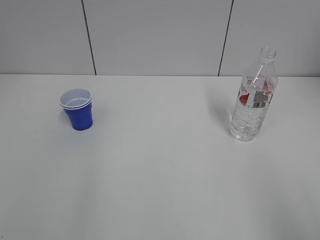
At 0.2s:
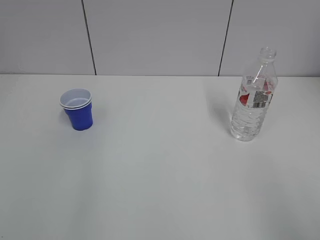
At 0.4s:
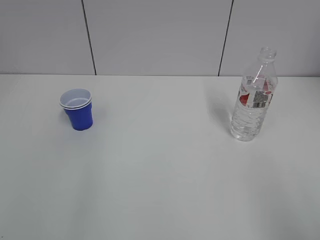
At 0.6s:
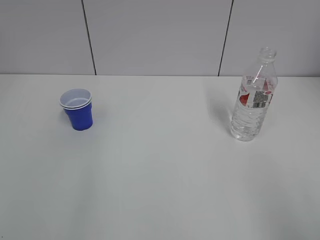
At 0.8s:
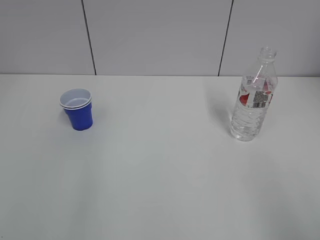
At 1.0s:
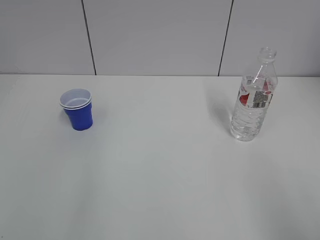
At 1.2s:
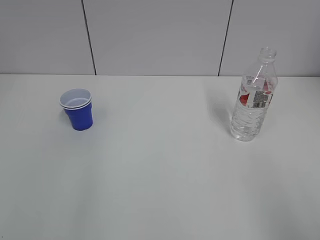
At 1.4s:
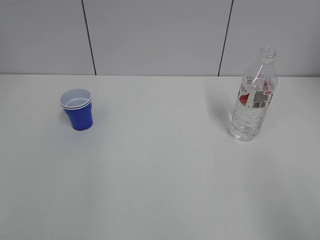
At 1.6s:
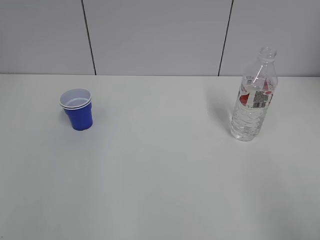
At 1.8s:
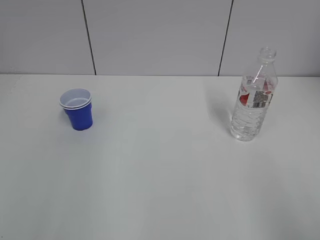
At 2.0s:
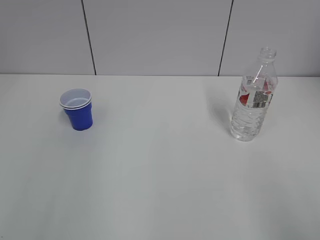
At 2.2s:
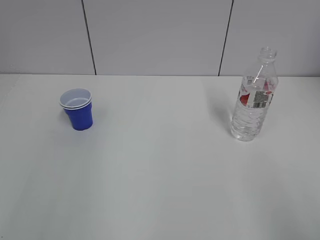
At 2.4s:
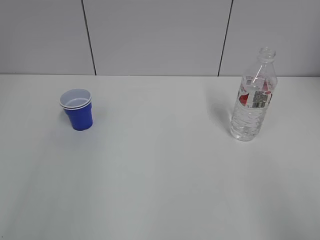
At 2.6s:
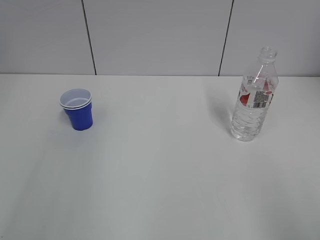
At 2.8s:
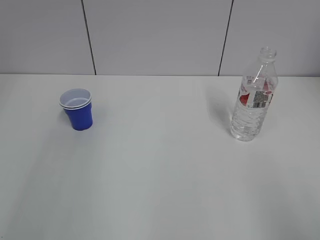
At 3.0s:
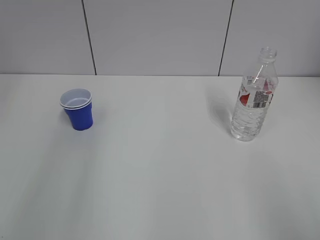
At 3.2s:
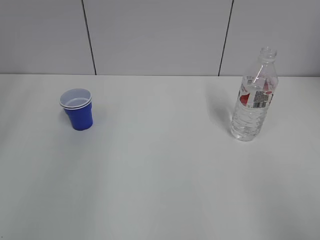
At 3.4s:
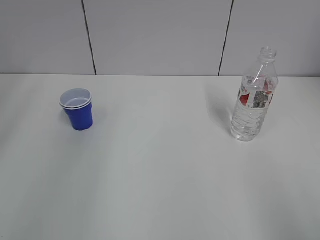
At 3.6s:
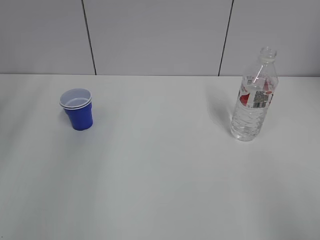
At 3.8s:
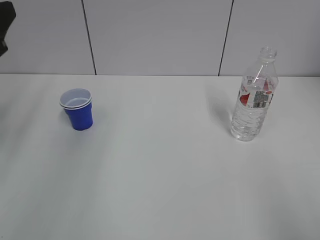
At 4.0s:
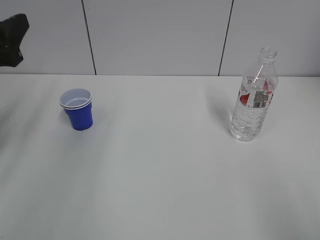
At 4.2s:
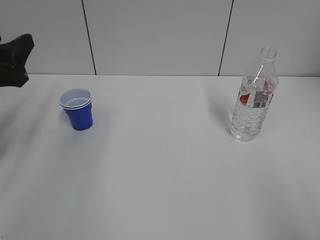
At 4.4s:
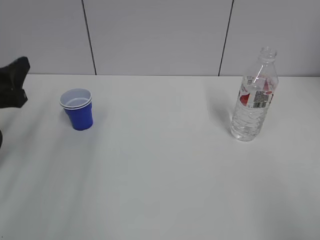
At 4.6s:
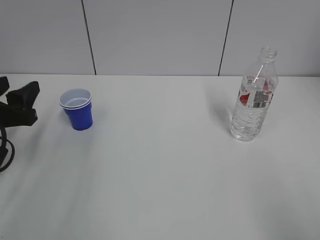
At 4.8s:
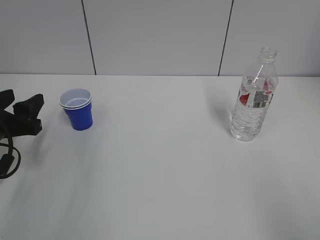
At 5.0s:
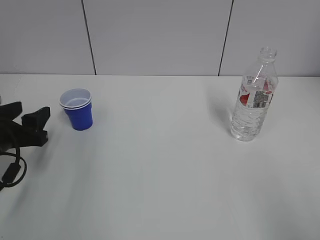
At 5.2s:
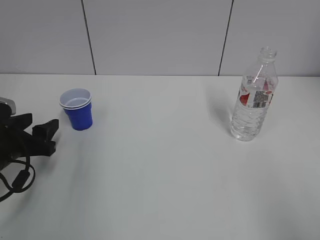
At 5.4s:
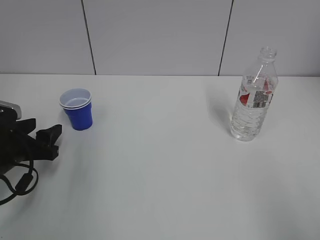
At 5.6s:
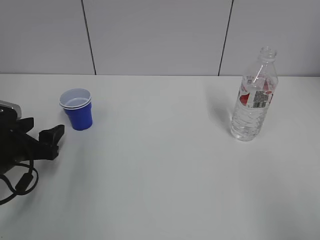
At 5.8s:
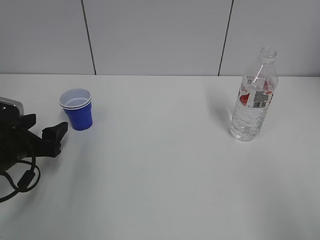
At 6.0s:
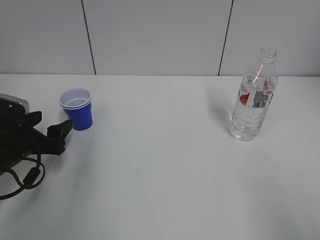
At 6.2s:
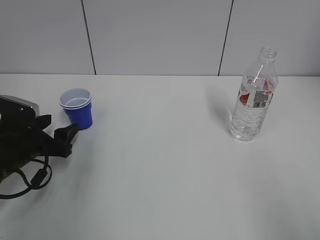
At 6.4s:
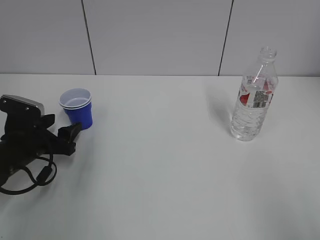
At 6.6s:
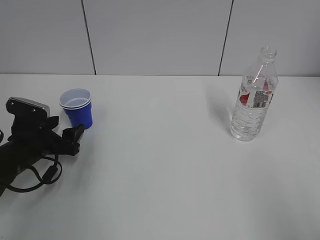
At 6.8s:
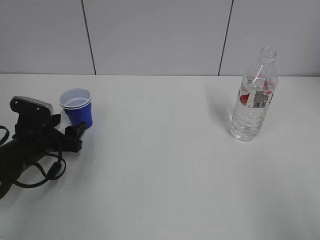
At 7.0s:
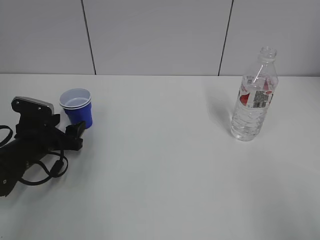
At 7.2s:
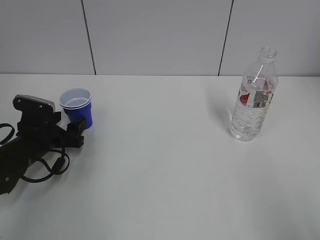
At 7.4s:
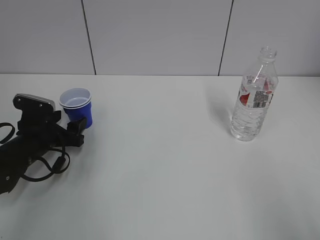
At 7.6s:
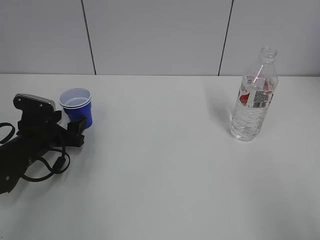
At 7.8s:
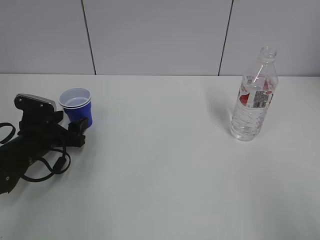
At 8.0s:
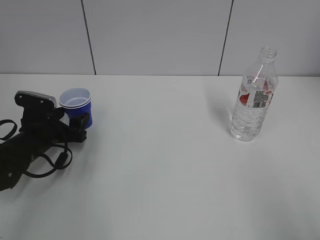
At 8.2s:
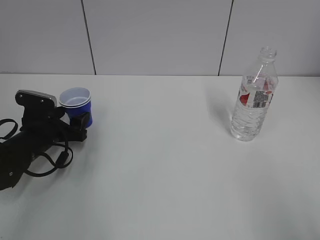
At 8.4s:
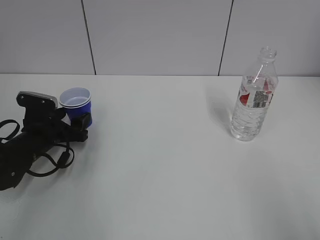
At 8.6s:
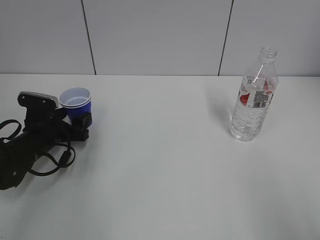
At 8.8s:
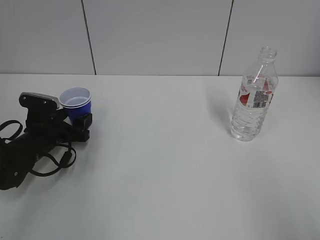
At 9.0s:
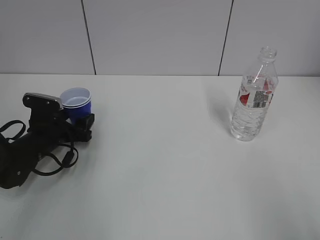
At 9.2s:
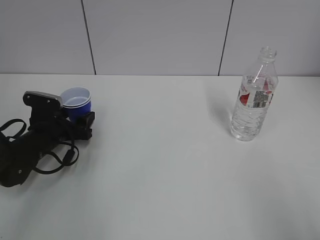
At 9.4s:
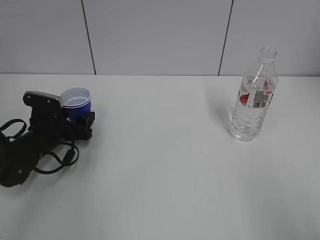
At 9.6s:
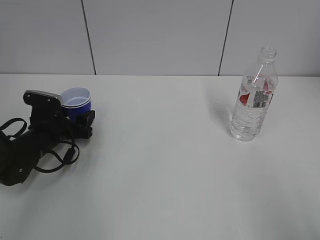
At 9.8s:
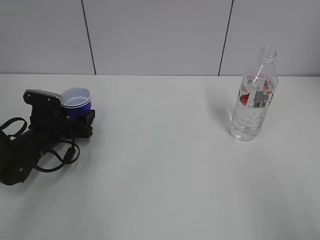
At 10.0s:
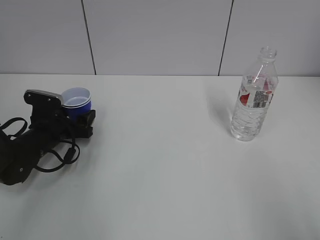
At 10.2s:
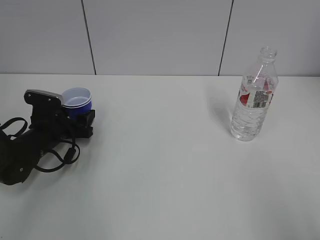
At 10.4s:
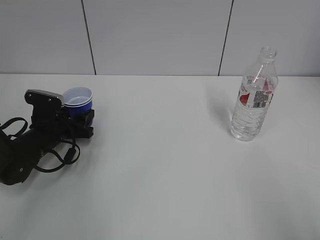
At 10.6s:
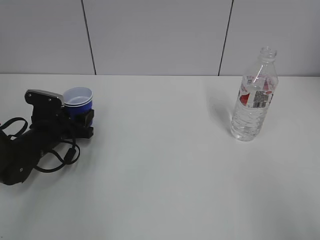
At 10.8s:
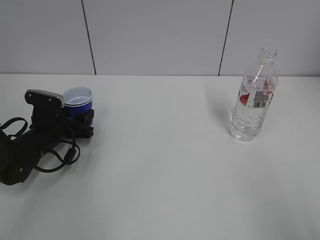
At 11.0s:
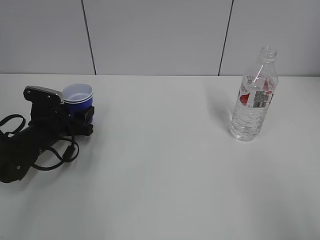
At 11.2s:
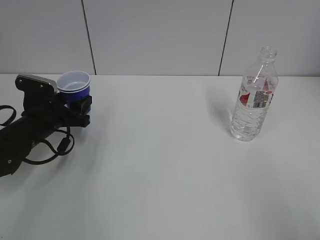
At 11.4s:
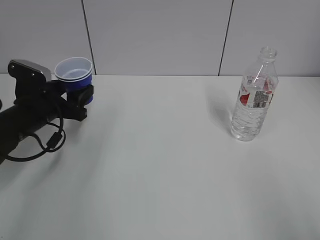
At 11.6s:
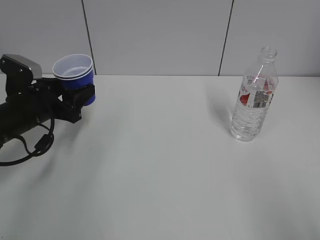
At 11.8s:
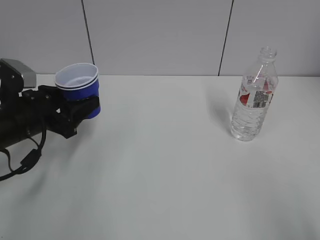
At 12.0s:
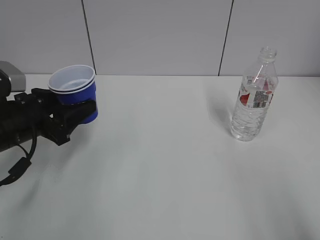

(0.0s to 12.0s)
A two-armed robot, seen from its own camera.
Step, 0.0s - 10.4s: Grab the paper cup with the left hand.
3.0s - 4.4s: The left gripper shifts roughly 20 cm downward and forward.
4.4s - 6.0s: The left gripper heads downward, covering approximately 10 cm, and opens.
6.0s - 7.6s: The left gripper is displaced forward by about 5 cm.
7.6s - 9.0s: The grippers move only a little.
9.0s - 10.4s: The left gripper closes.
10.4s - 12.0s: The left gripper moves upward and backward, some 15 cm.

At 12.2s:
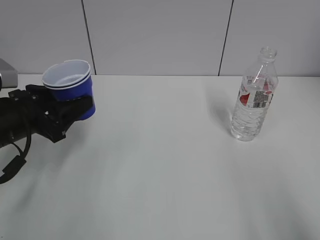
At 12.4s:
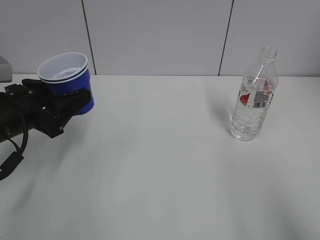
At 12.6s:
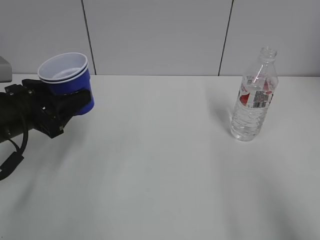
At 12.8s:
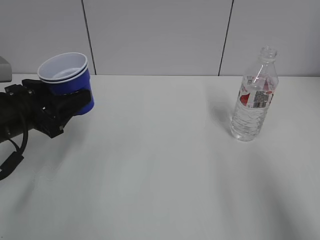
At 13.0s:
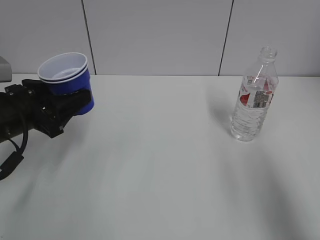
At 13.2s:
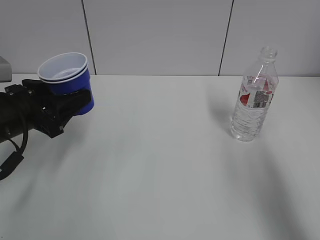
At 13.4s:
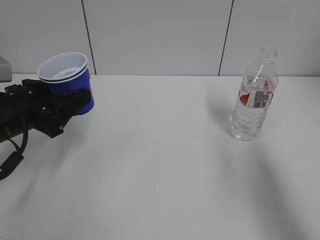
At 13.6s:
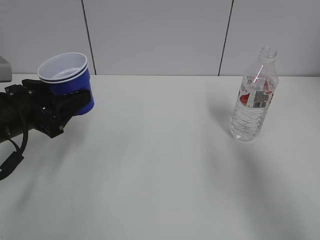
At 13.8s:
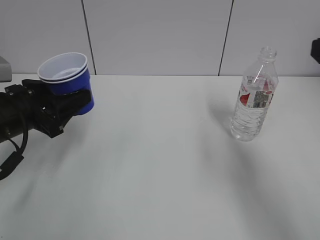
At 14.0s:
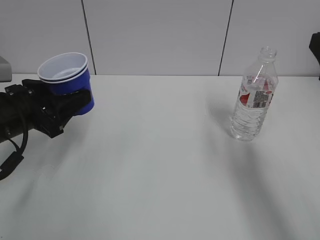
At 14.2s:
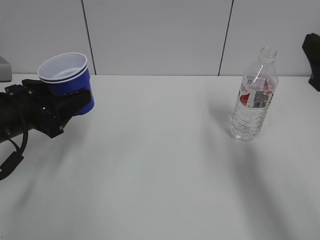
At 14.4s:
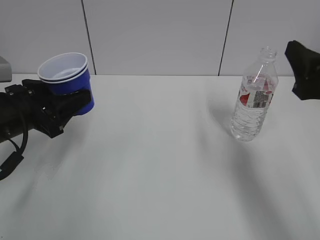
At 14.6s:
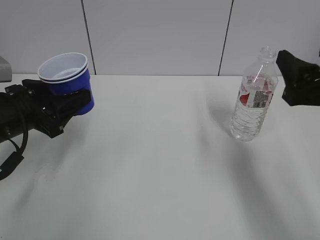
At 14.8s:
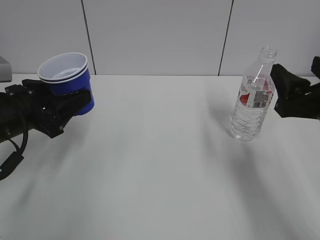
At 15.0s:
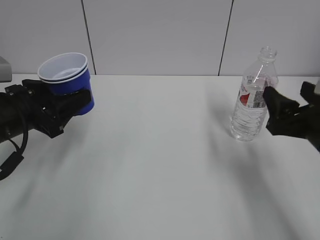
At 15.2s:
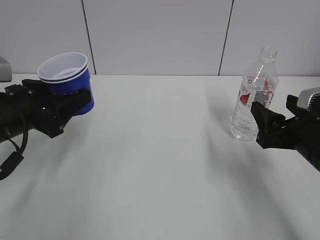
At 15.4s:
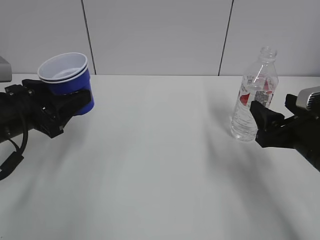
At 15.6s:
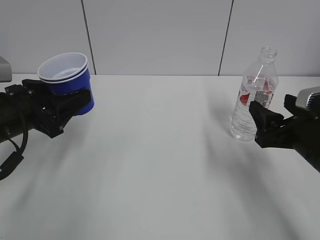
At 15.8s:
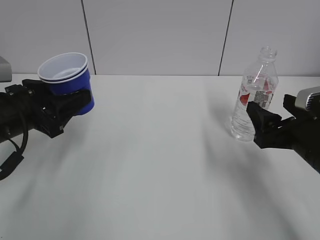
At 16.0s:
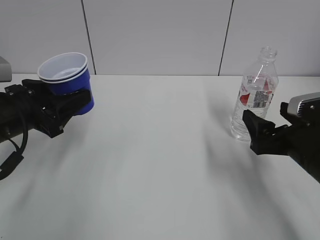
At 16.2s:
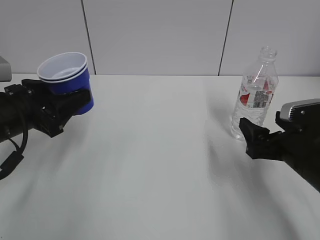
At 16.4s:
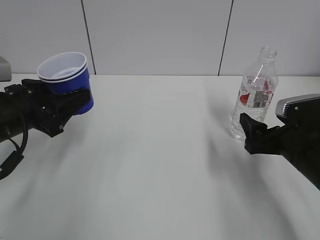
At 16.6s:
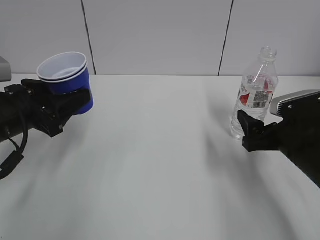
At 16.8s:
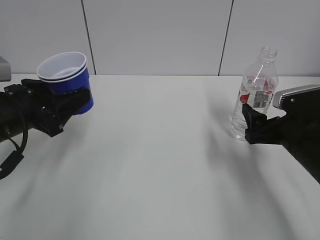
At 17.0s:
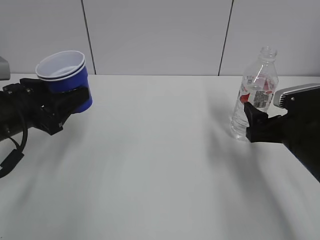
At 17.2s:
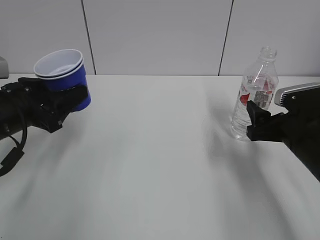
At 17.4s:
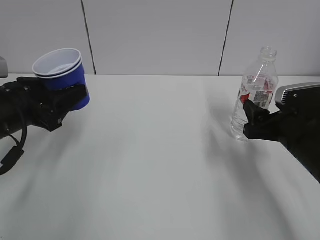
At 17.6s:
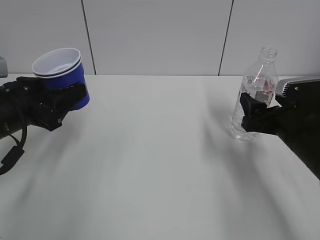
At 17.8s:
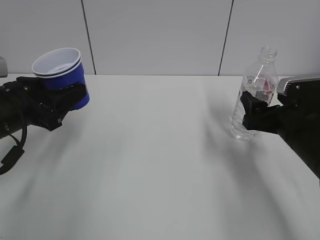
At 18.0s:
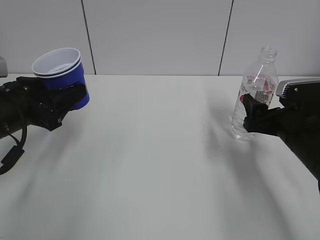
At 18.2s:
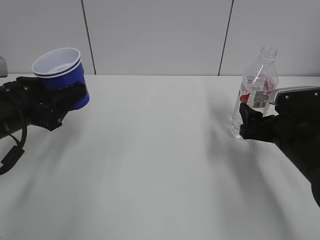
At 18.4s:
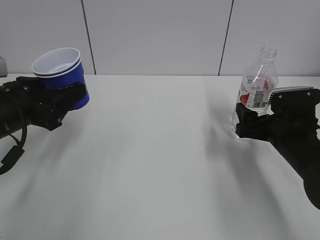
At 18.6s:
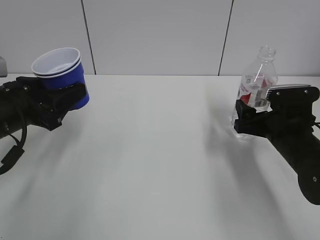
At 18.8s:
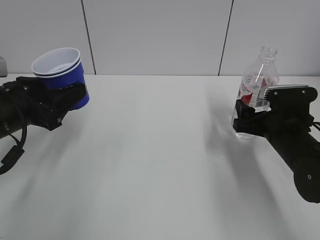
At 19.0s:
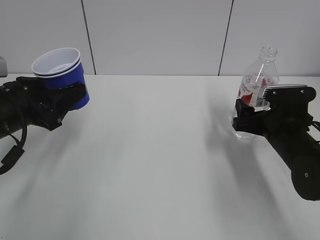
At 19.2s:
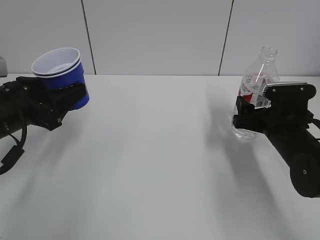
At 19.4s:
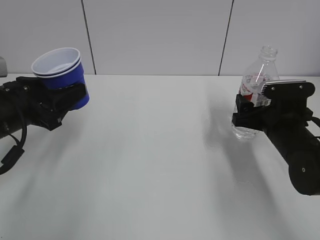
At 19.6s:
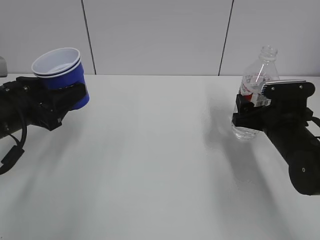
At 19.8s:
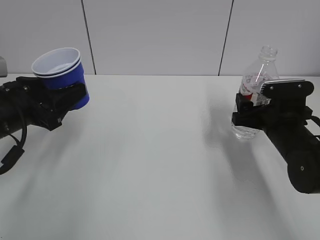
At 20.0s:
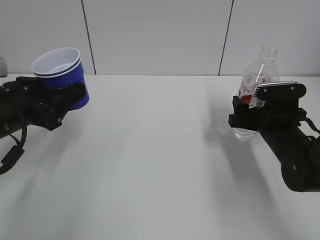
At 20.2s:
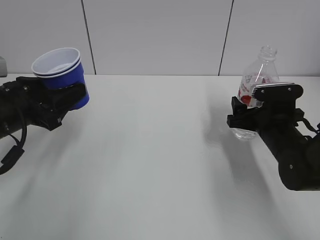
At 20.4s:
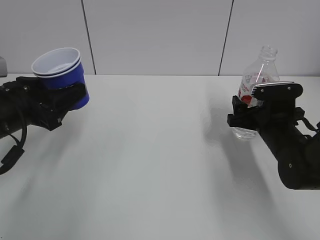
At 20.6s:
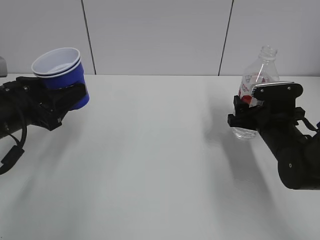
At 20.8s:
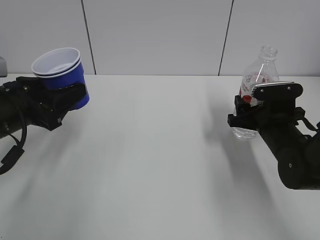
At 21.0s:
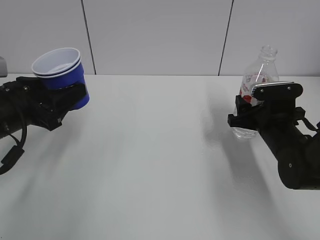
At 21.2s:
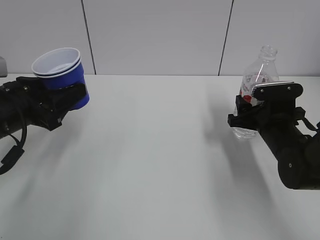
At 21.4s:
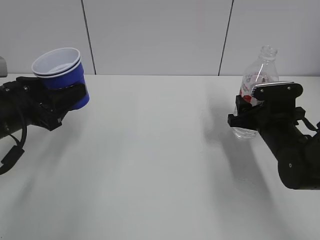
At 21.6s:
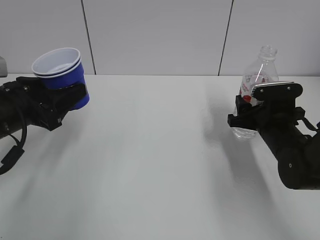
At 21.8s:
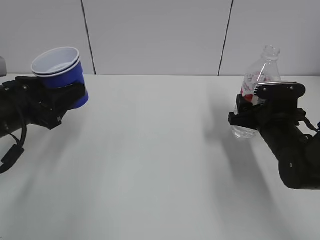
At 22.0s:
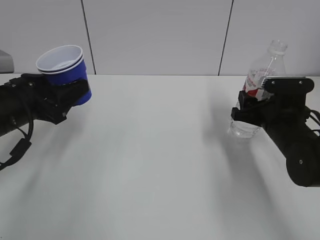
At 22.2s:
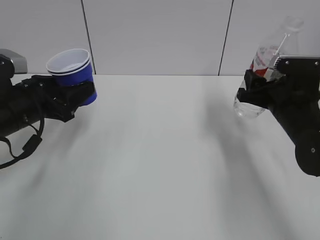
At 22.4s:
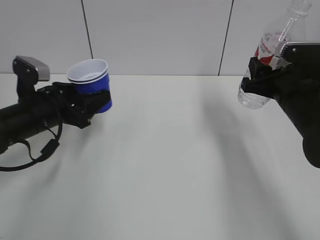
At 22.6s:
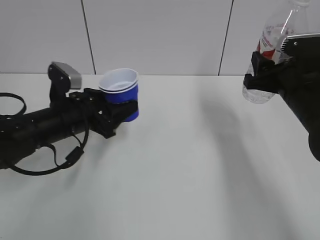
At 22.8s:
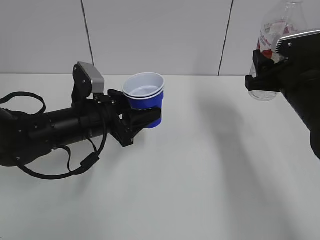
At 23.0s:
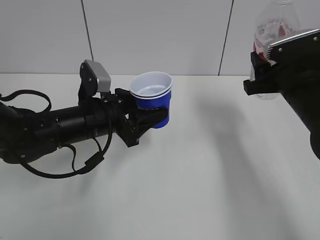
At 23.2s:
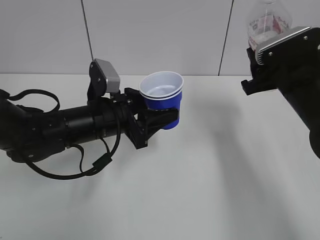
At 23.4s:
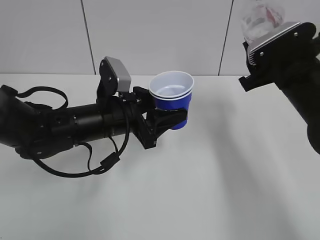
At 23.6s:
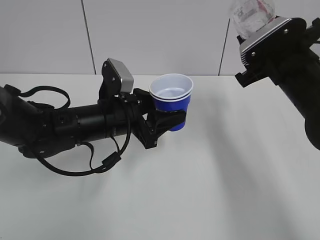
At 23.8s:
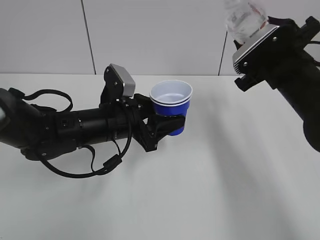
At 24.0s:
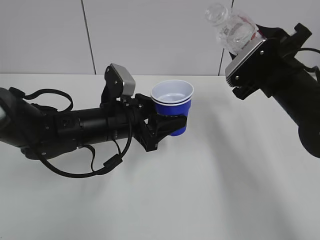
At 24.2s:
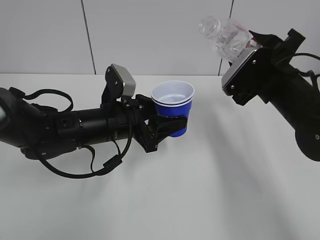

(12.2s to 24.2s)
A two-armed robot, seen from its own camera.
Step, 12.2s - 20.8s: Grab the water bottle with the right hand.
12.2s - 13.8s: The right gripper is displaced forward by about 20 cm.
13.8s - 15.2s: The right gripper is displaced downward and forward by approximately 15 cm.
15.2s - 16.6s: The right gripper opens up.
16.6s - 18.2s: The right gripper closes and opens again.
18.2s - 19.8s: The grippers stay close to where they were, moving slightly.
19.8s - 21.2s: The right gripper closes.
21.2s - 22.6s: The left gripper heads to the right, downward and forward, covering some 10 cm, while the right gripper moves upward, about 10 cm.
22.6s - 24.2s: The left gripper shifts about 10 cm to the right.
